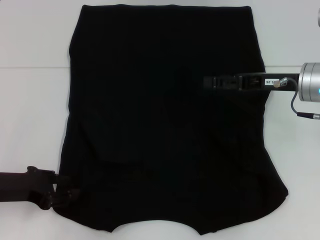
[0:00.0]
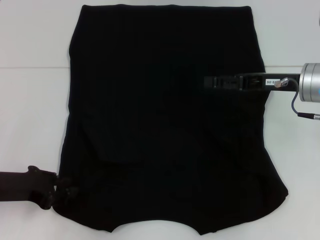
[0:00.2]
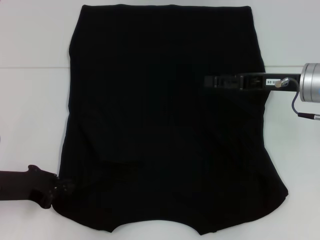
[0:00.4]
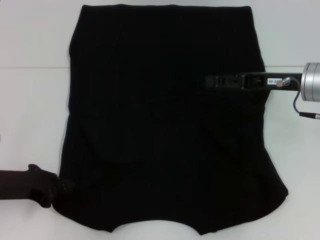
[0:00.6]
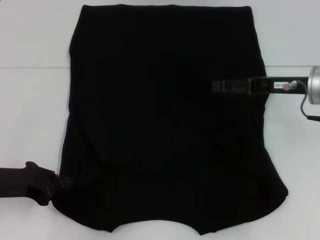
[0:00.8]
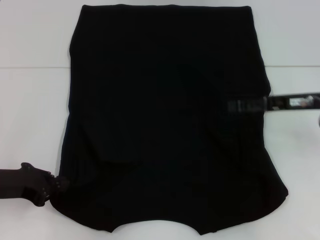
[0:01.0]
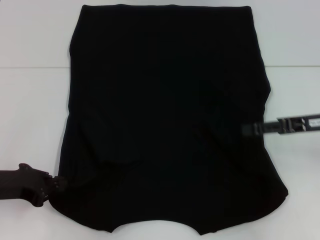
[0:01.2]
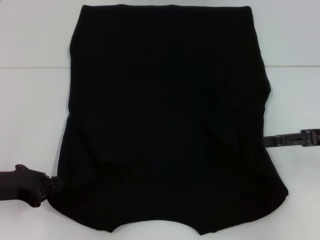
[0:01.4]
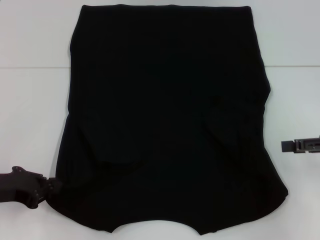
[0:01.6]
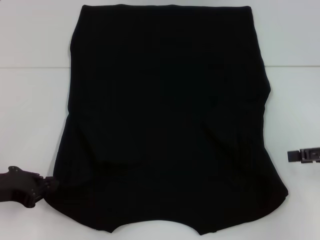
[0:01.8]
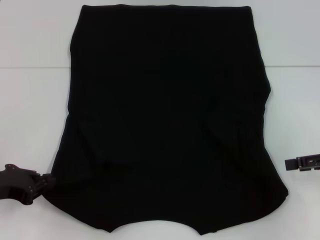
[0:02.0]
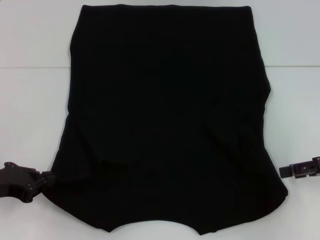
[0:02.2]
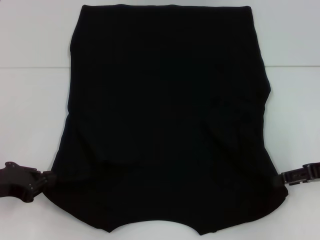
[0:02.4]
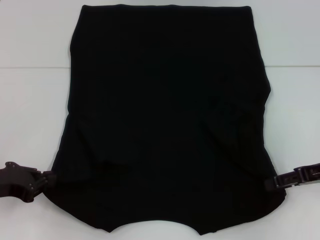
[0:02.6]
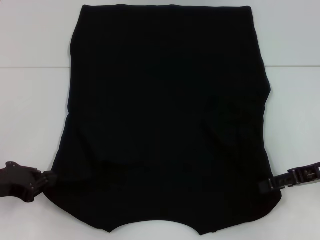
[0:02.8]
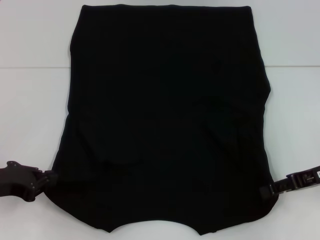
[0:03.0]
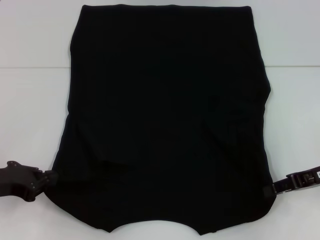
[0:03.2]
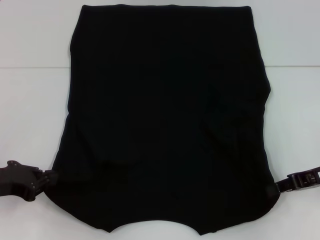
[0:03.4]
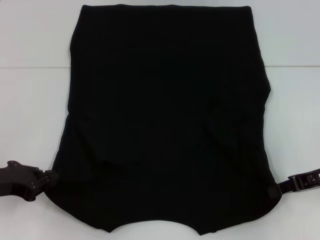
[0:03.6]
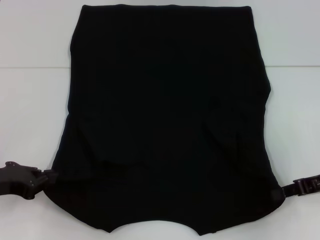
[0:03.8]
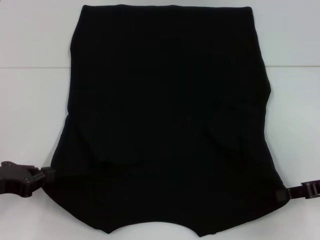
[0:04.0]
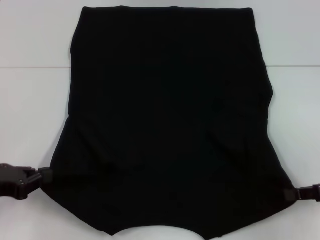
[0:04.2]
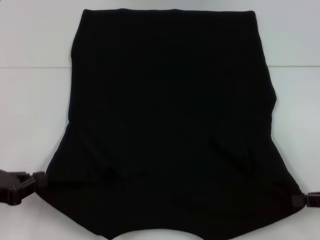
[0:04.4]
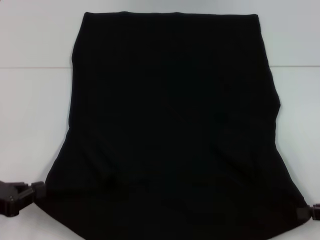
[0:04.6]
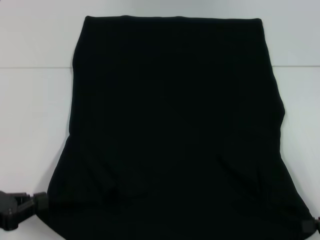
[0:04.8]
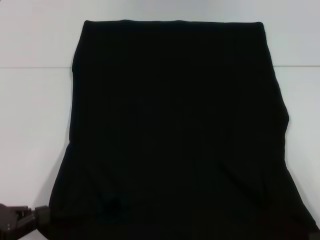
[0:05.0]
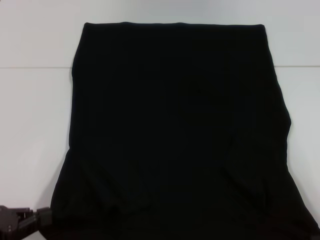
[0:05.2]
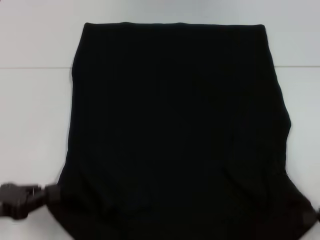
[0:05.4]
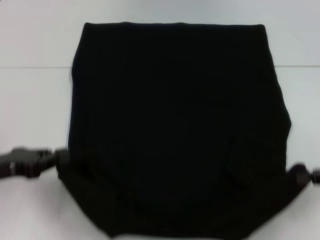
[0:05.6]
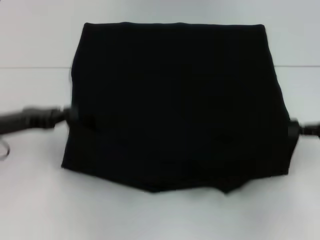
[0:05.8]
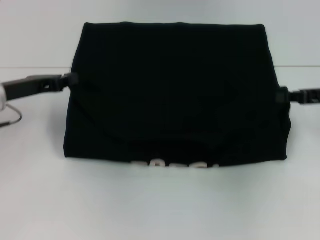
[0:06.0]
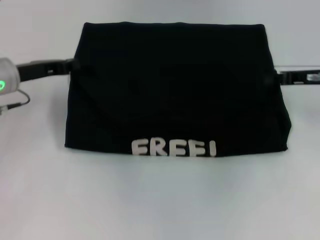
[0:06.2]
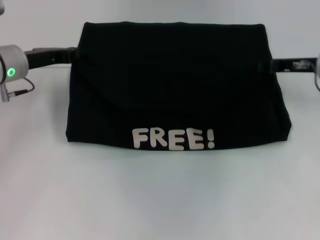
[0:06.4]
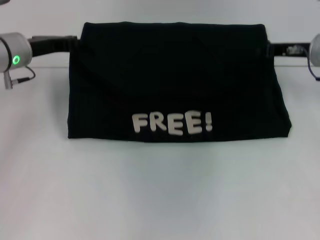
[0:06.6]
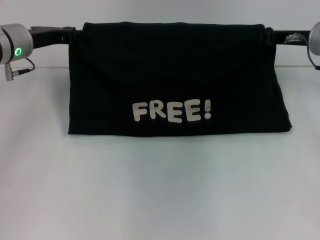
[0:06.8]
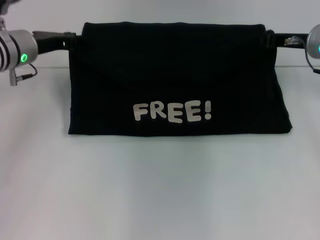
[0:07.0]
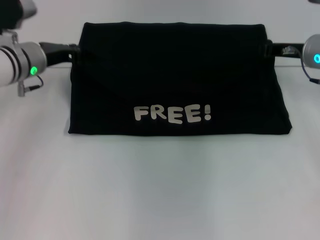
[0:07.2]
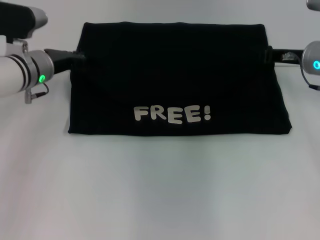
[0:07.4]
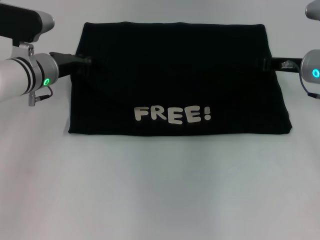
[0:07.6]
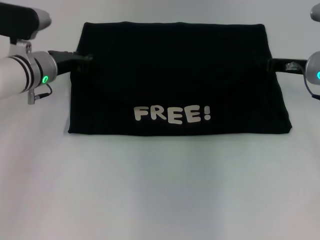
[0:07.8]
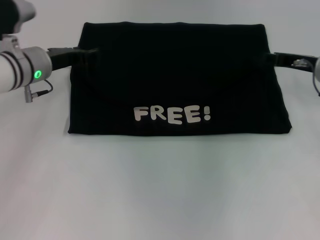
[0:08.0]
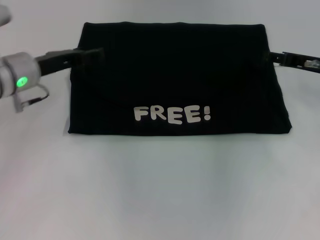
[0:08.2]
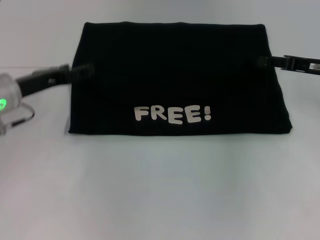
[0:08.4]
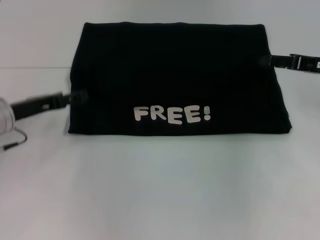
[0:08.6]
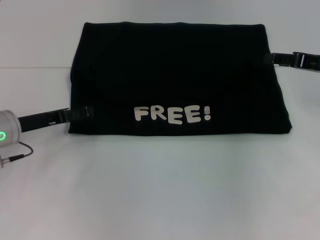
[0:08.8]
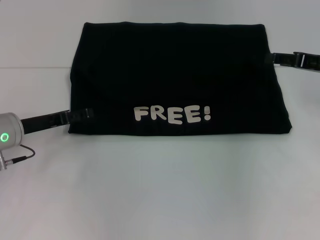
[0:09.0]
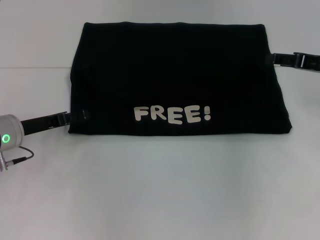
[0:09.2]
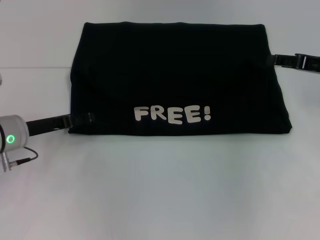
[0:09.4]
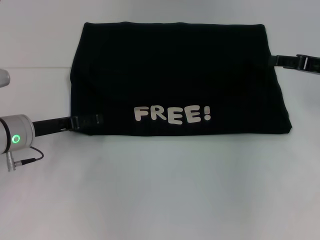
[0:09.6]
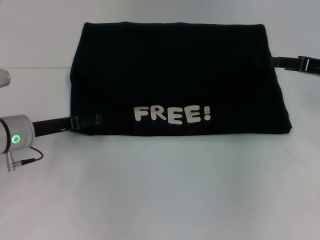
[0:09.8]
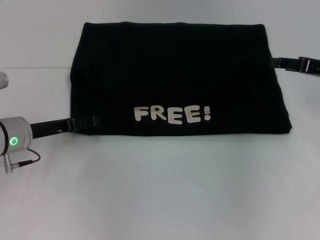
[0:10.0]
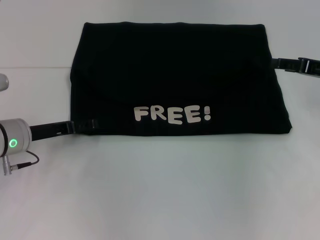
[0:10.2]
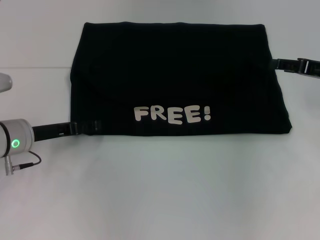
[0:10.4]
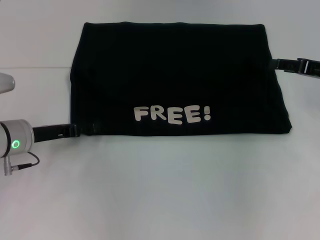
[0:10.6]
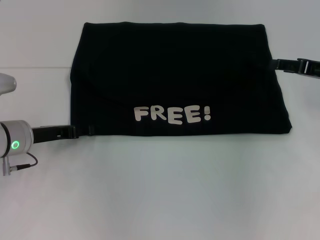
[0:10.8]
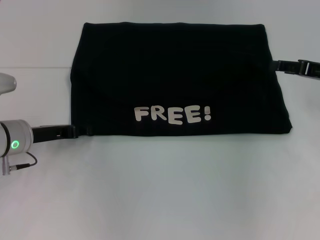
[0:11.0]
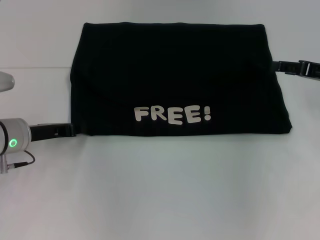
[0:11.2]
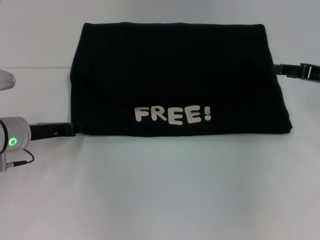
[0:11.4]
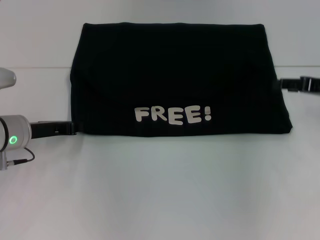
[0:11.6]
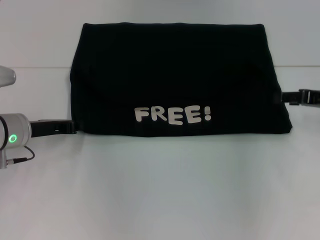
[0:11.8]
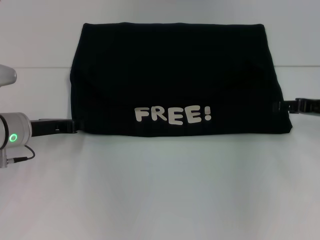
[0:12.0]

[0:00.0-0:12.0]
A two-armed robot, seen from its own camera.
Step, 0:01.2 to 0:03.6: Grab the bottom right corner with your right hand.
Step, 0:03.8 to 0:08.4: Fold the clothes with your left hand.
Step, 0:03.8 to 0:08.4: Fold the clothes with your right hand.
0:00.0 to 0:01.6: The right gripper shifts some 15 cm to the right and backward; the left gripper closes.
0:01.6 to 0:03.0: The right gripper ends up about 5 cm from where it was.
0:03.0 to 0:04.4: The right gripper moves backward and to the right, some 10 cm, and closes up.
0:04.4 to 0:06.0: The left gripper shifts about 15 cm forward, while the right gripper is displaced forward and upward by roughly 15 cm.
0:06.0 to 0:07.6: The right gripper heads to the left and forward, covering about 10 cm, while the left gripper moves forward and to the right, some 10 cm.
0:07.6 to 0:09.0: The right gripper travels to the right by some 5 cm, and opens up; the left gripper heads backward and to the left, covering approximately 10 cm, and opens its fingers.
0:09.0 to 0:10.4: The grippers move only a little.
0:10.4 to 0:12.0: The left gripper closes.

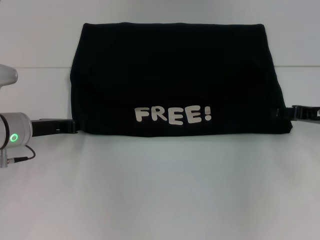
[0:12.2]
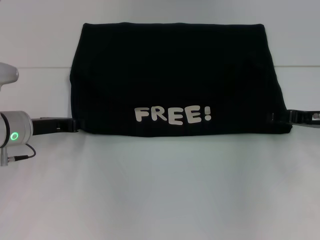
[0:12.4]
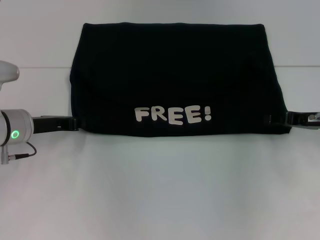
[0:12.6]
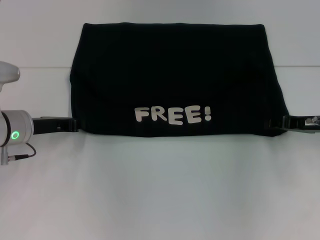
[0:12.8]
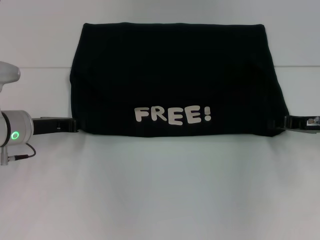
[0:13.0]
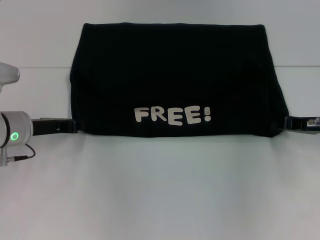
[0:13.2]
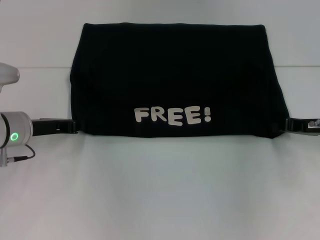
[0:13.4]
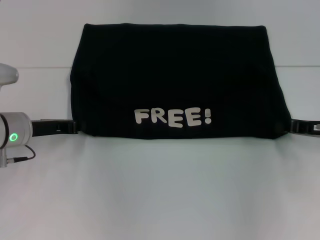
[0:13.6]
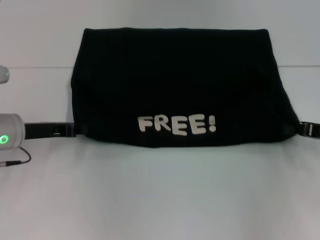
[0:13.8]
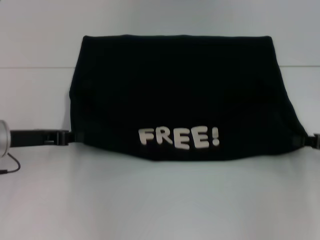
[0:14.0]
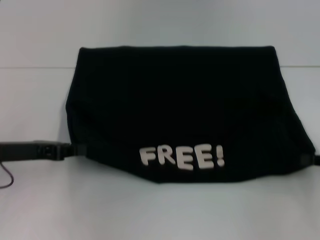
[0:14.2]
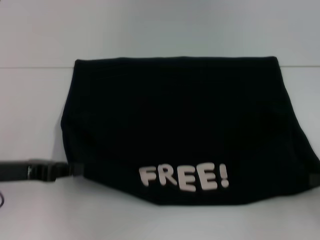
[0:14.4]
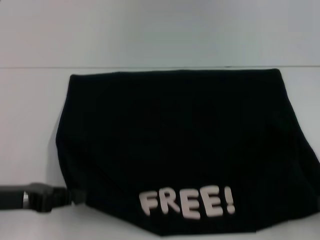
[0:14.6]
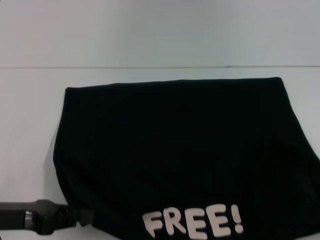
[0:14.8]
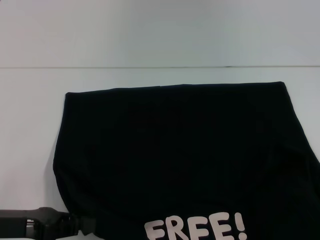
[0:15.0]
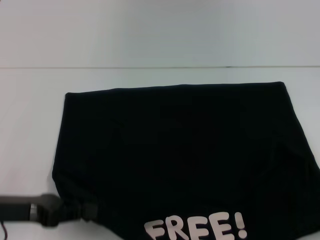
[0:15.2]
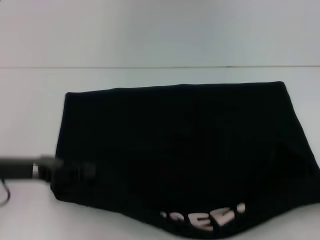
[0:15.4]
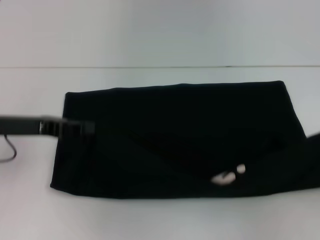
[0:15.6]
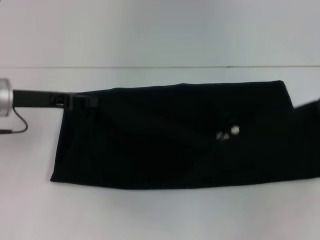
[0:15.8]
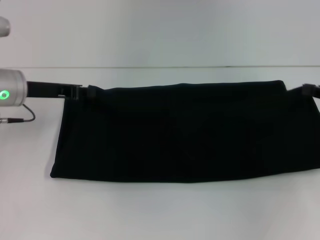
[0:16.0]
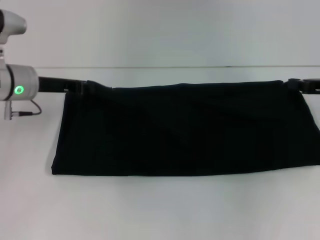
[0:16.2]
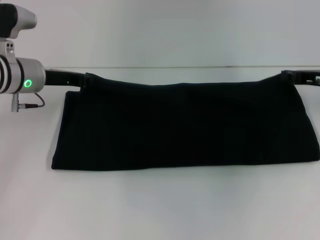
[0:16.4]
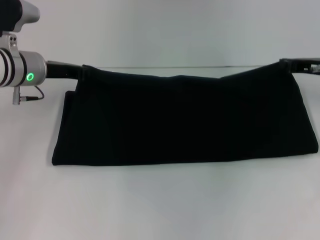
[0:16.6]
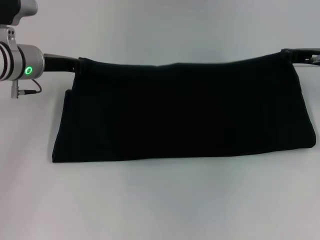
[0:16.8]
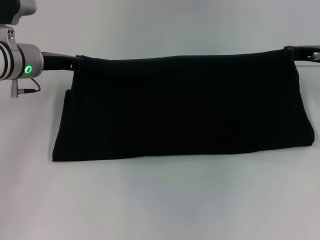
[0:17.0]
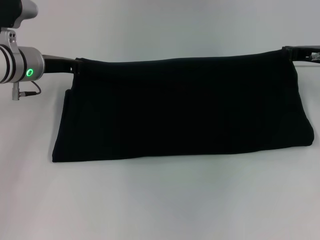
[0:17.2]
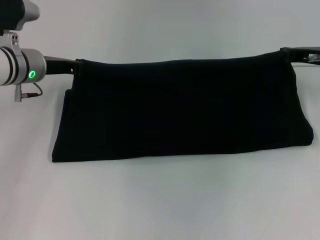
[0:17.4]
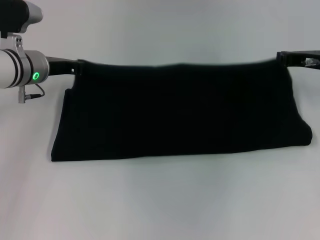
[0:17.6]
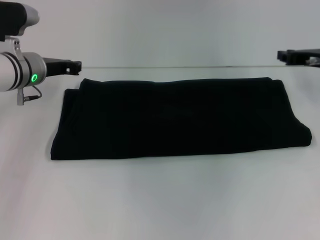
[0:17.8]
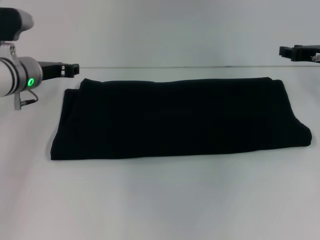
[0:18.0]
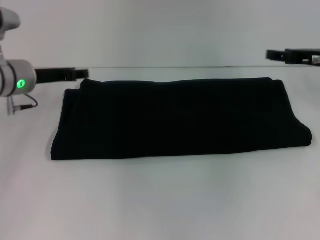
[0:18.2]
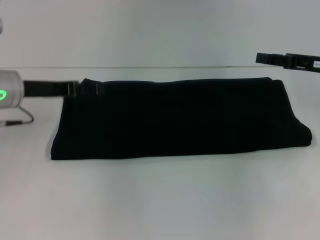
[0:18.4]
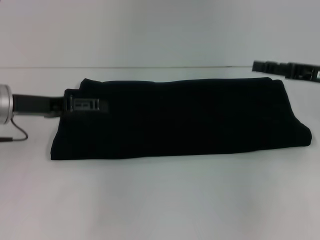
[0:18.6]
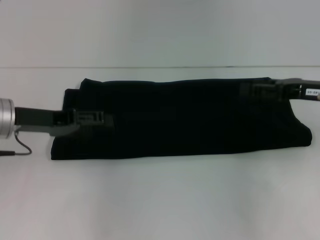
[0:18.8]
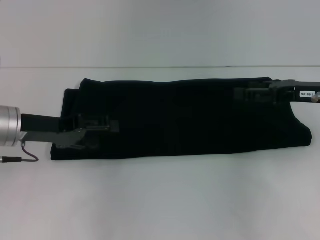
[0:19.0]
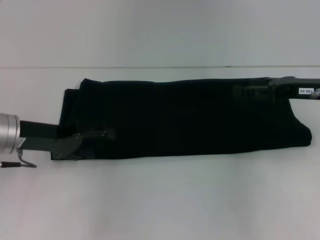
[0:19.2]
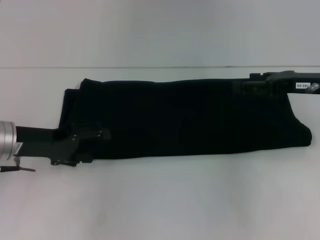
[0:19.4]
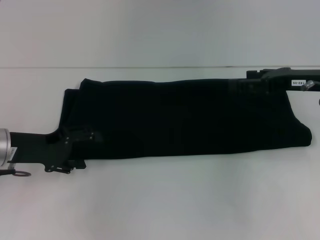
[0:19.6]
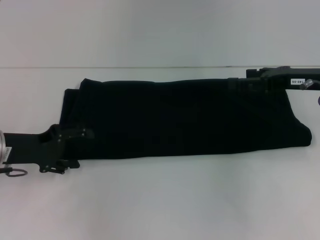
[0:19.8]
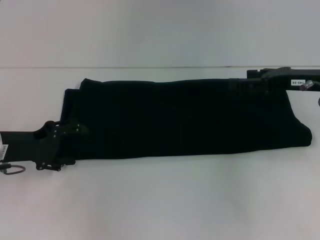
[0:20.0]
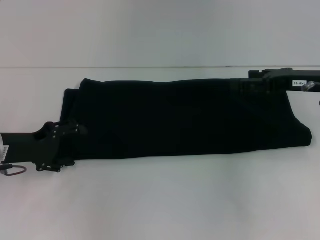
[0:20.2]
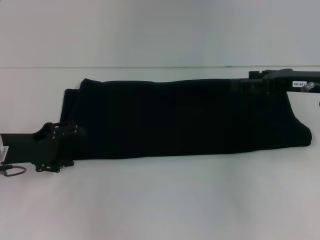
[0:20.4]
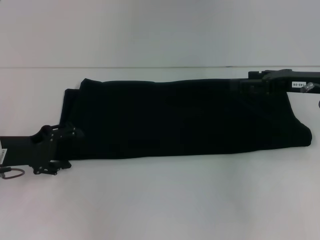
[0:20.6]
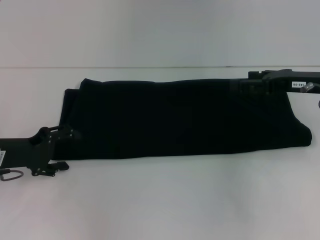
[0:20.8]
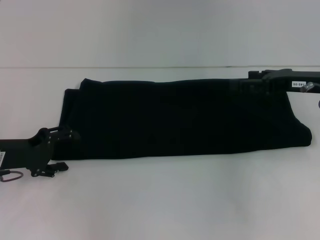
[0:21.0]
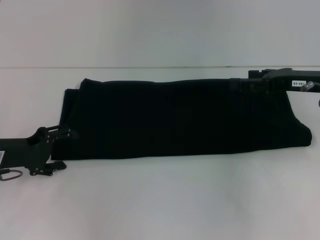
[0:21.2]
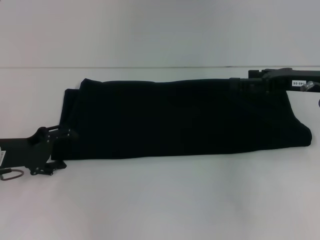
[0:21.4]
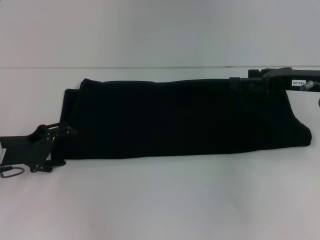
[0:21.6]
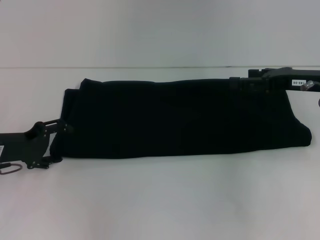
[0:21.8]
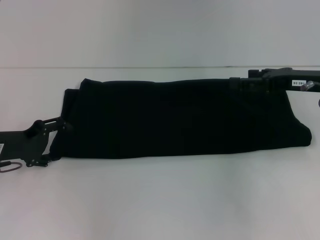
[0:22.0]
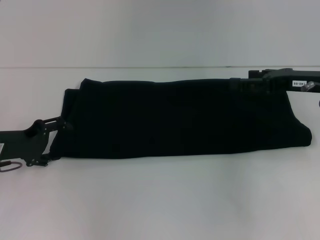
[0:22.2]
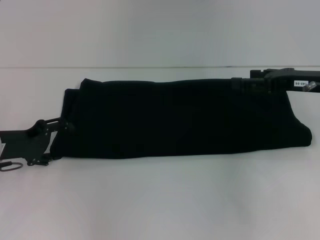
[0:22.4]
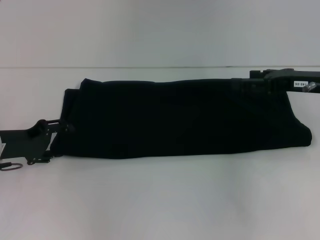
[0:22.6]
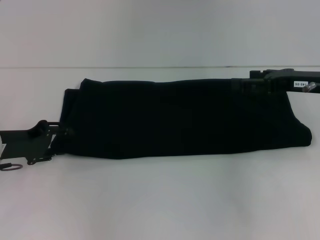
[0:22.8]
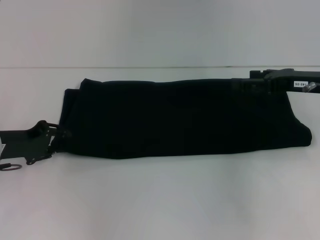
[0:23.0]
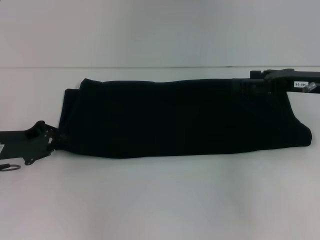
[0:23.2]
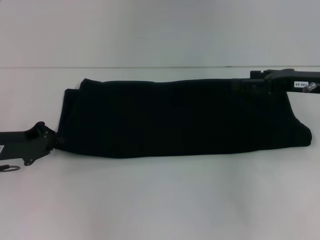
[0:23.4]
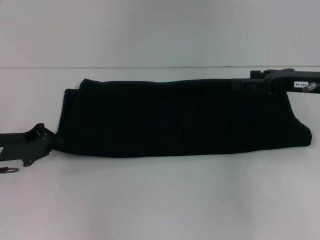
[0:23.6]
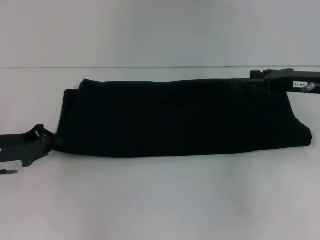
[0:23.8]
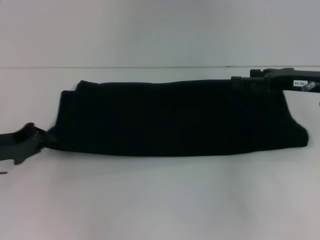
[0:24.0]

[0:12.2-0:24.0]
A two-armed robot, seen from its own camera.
Step, 0:12.2 to 0:14.6: Pull the clothes with your left hand.
Step, 0:12.2 to 0:14.6: Pull the clothes with your right hand.
Step, 0:14.8 to 0:18.2: Fold the clothes with your right hand.
0:12.2 to 0:13.6: The right gripper closes up.
0:13.6 to 0:15.2: The right gripper heads backward and to the right, covering about 20 cm, while the left gripper heads backward, covering roughly 15 cm.
0:15.2 to 0:16.6: The right gripper heads forward and to the left, covering some 25 cm. The left gripper moves forward, approximately 20 cm.
0:16.6 to 0:18.2: The right gripper opens its fingers. The left gripper opens its fingers.
0:18.2 to 0:19.6: The left gripper goes some 10 cm backward, and opens, while the right gripper opens its fingers.
0:19.6 to 0:22.6: The grippers move only a little.
0:22.6 to 0:24.0: The left gripper closes.
